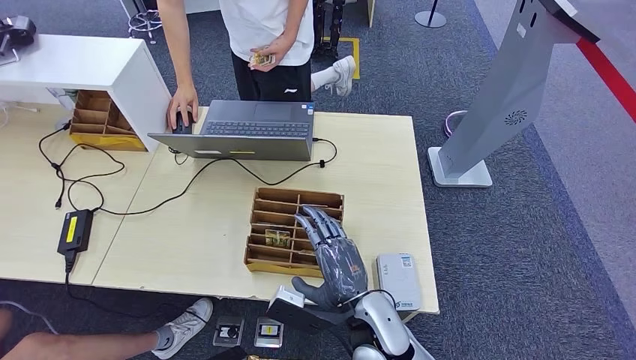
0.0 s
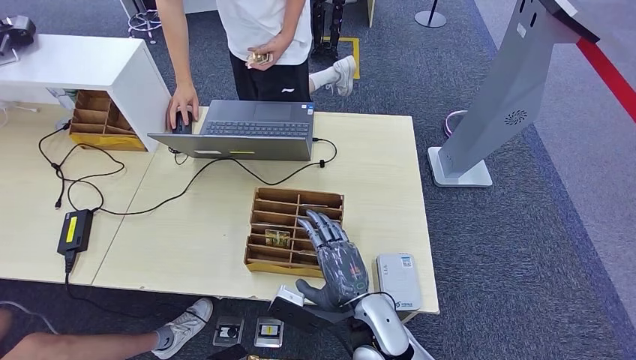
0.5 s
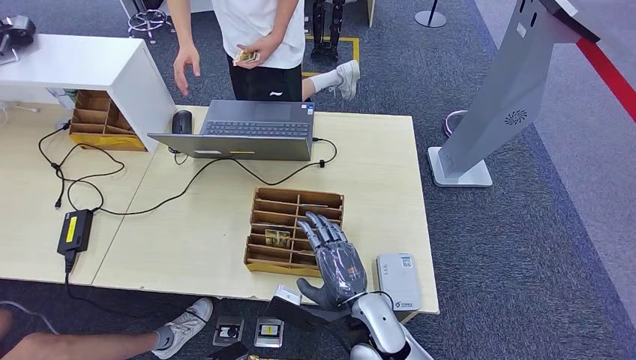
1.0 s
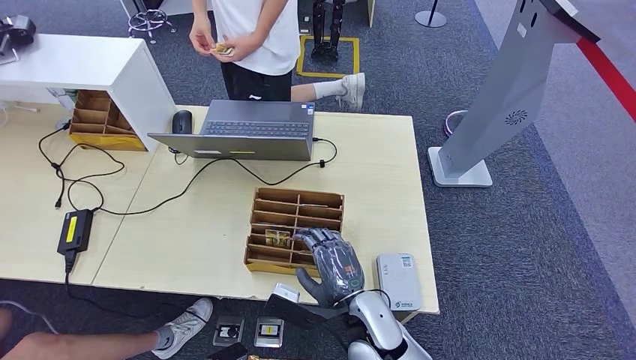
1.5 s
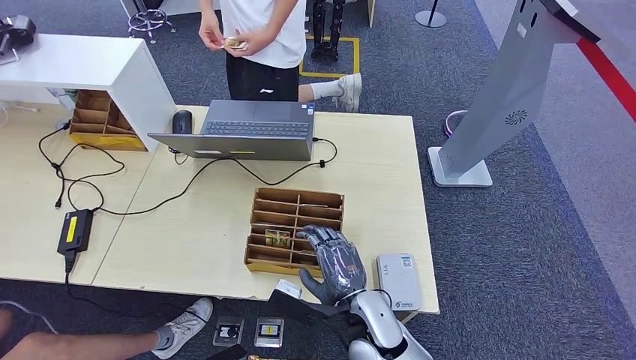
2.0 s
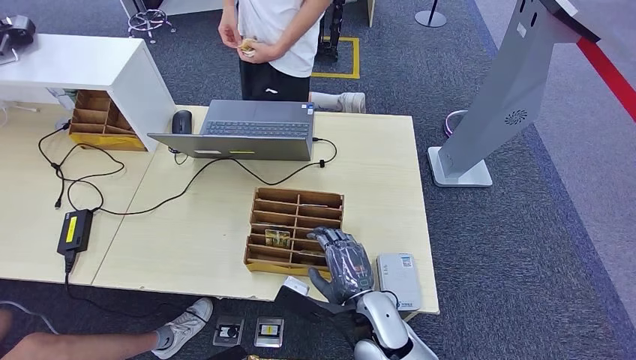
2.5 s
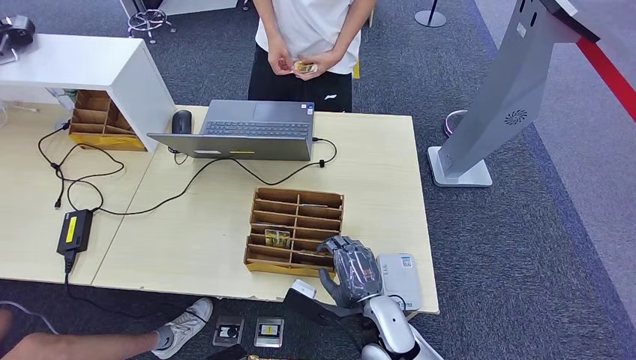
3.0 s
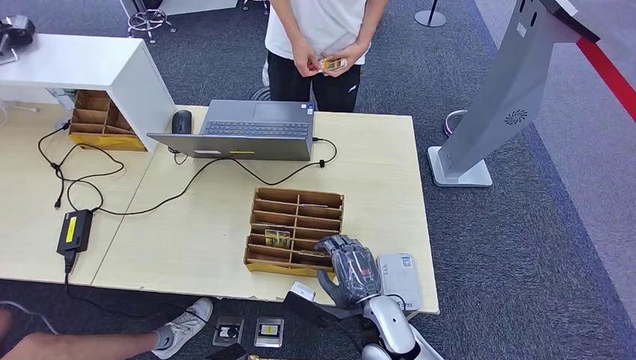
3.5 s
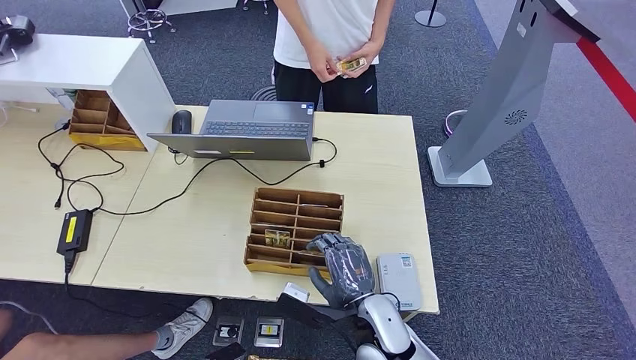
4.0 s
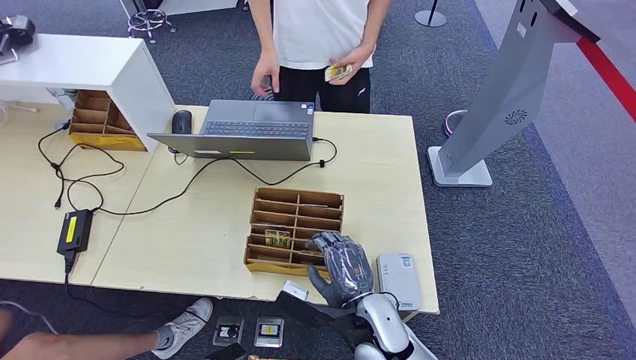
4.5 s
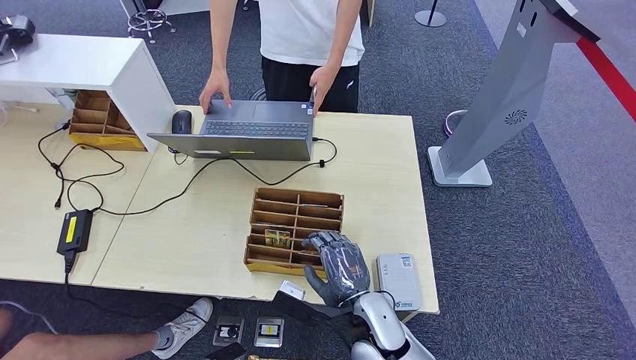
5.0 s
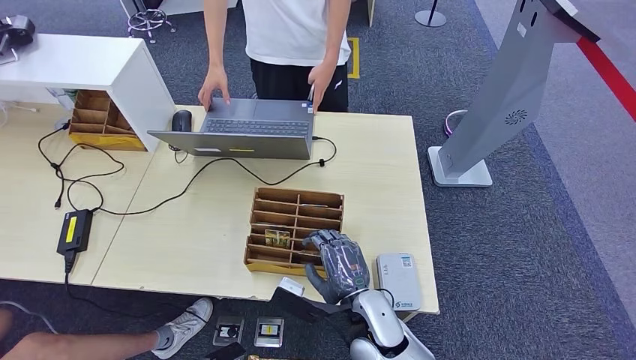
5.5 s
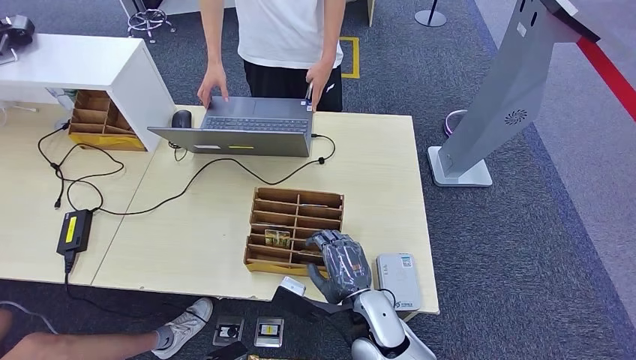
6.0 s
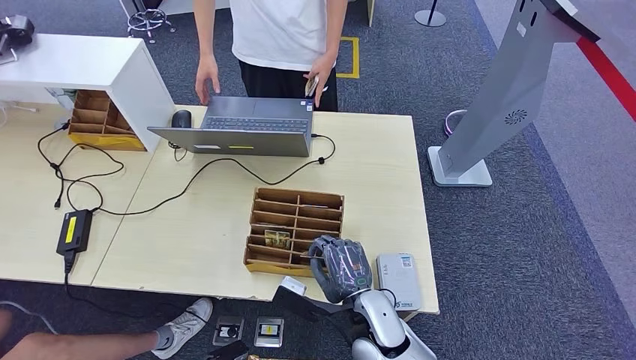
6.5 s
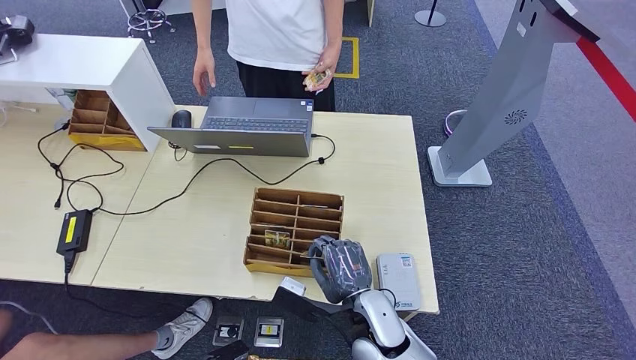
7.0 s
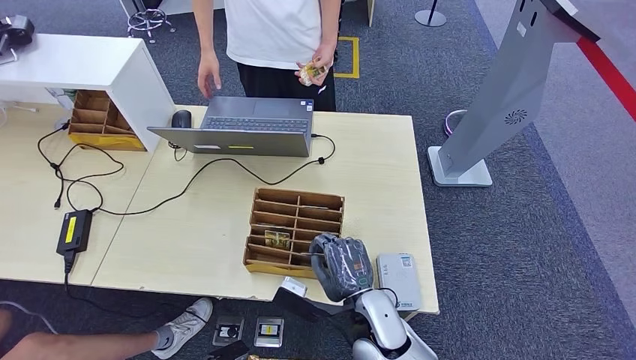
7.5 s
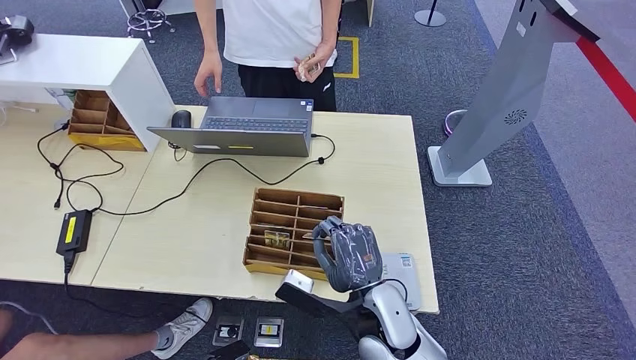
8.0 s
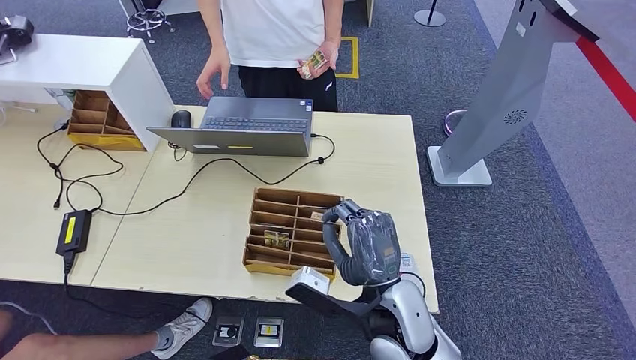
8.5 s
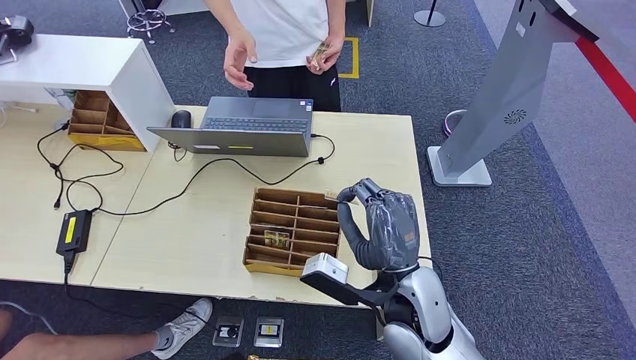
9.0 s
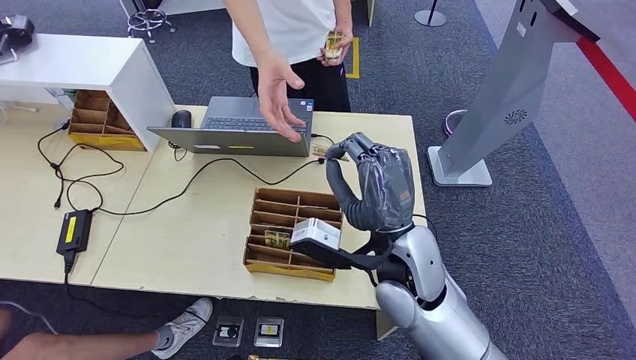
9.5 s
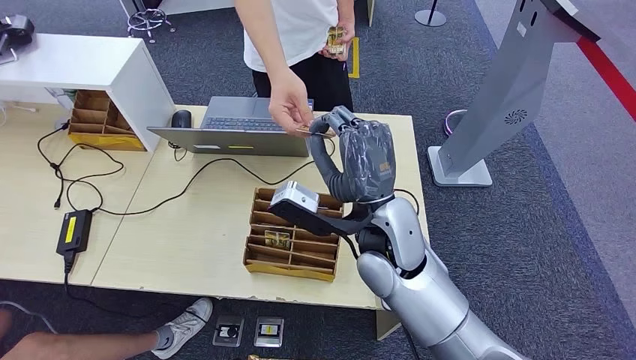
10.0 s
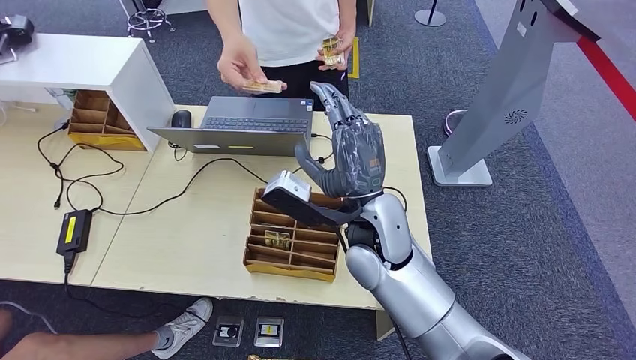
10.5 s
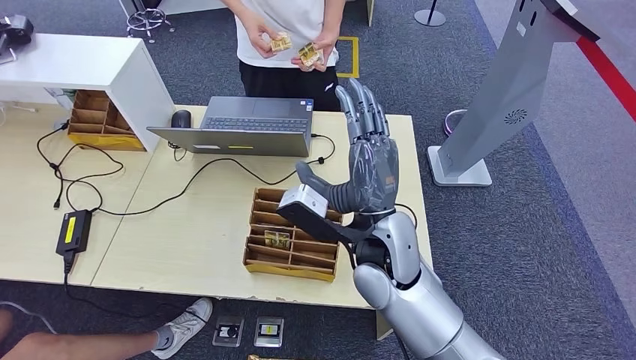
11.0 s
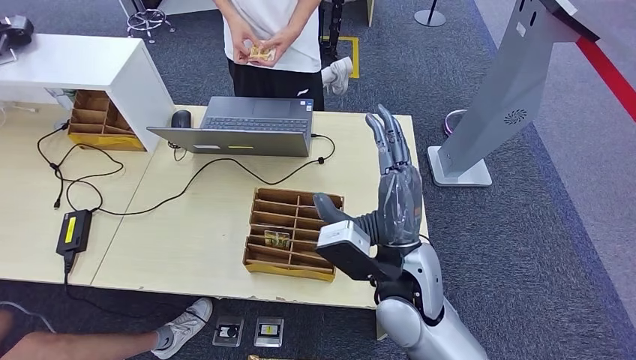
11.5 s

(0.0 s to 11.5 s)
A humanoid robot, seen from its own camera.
Step, 4.5 s - 9.5 s: Pick up the room key from the key card box.
Step, 10.0 s - 11.5 s: Hand the room key to the person.
0.0 s - 4.0 s: There are only small adjustments of the hands.
4.0 s - 7.5 s: Both hands stay about where they are.
7.5 s - 9.5 s: The right hand shifts about 15 cm upward and forward.
9.5 s - 11.5 s: The hands move only a little.
